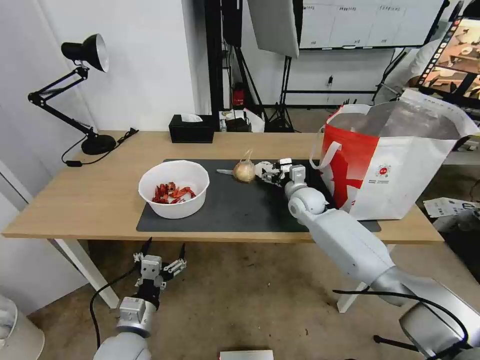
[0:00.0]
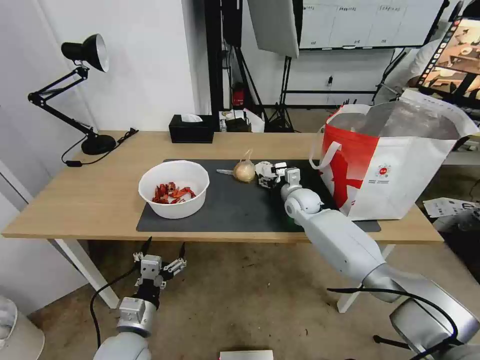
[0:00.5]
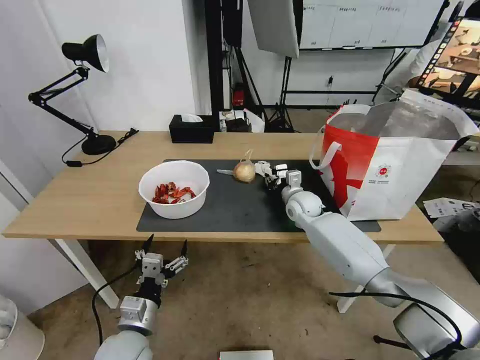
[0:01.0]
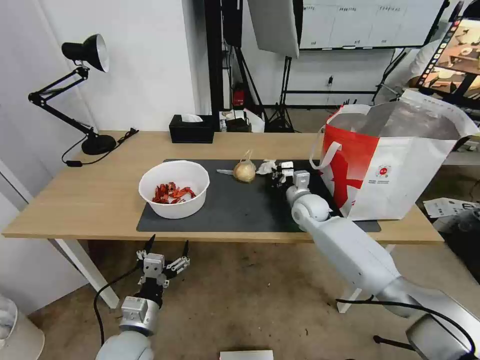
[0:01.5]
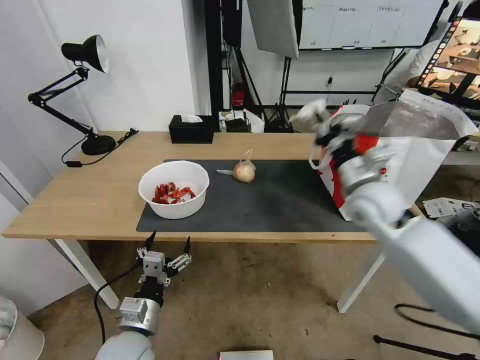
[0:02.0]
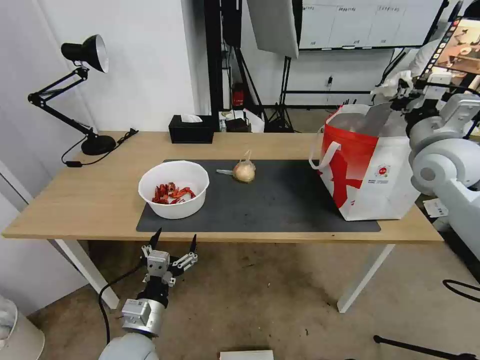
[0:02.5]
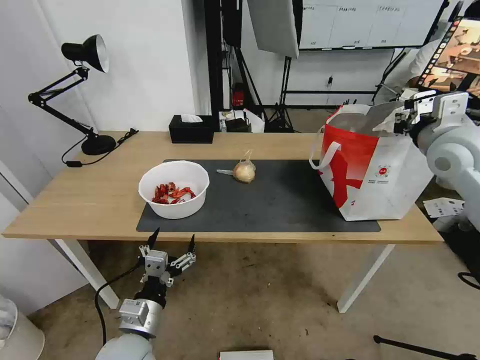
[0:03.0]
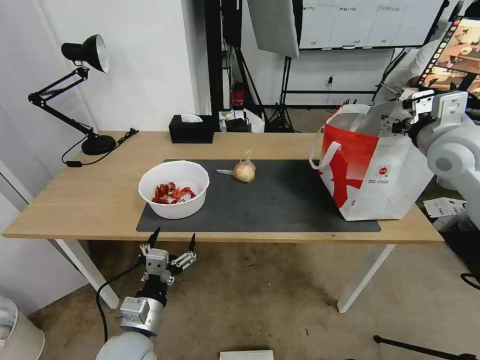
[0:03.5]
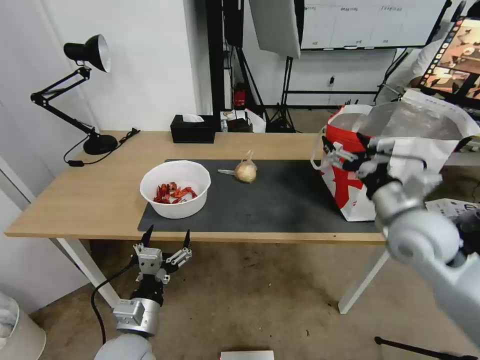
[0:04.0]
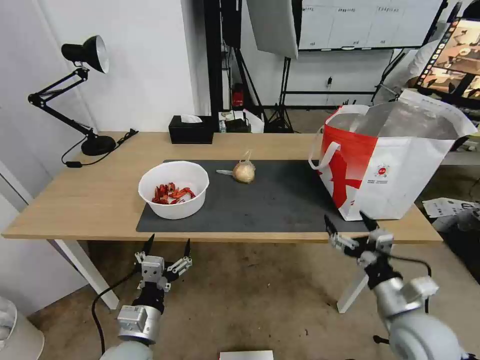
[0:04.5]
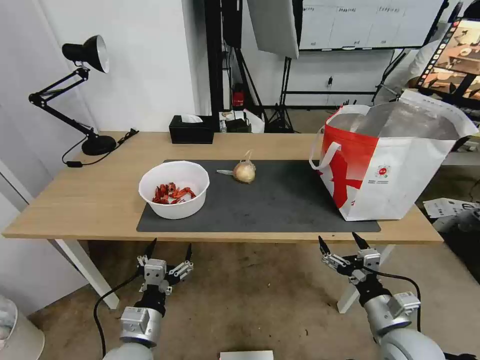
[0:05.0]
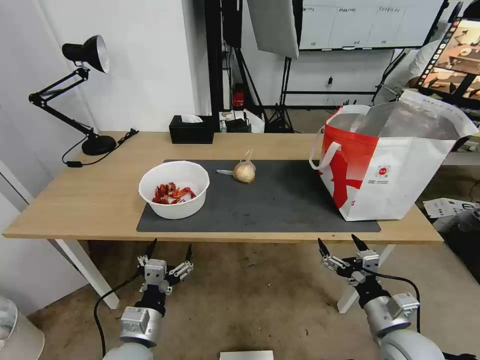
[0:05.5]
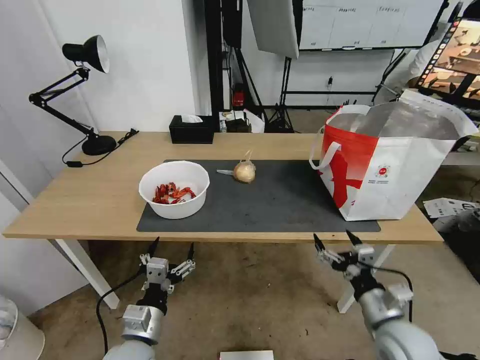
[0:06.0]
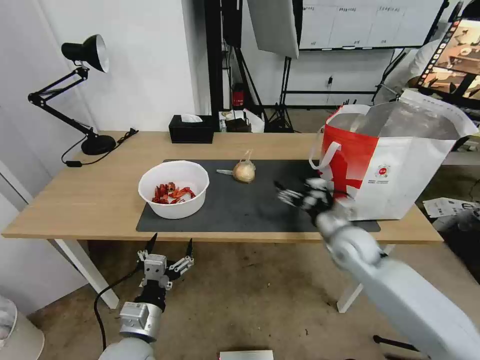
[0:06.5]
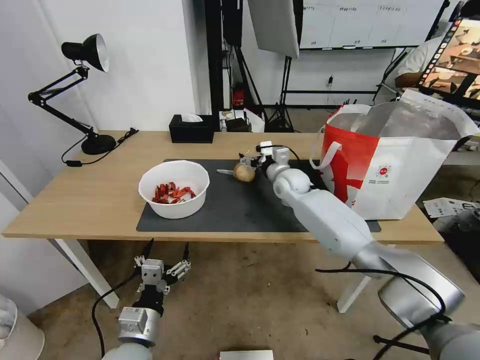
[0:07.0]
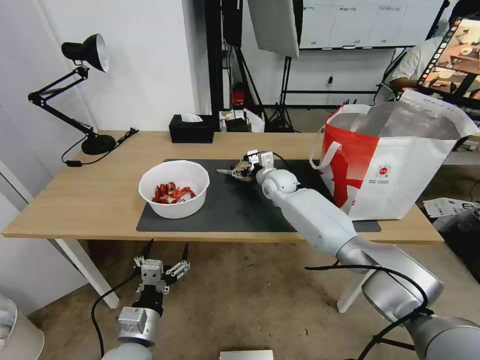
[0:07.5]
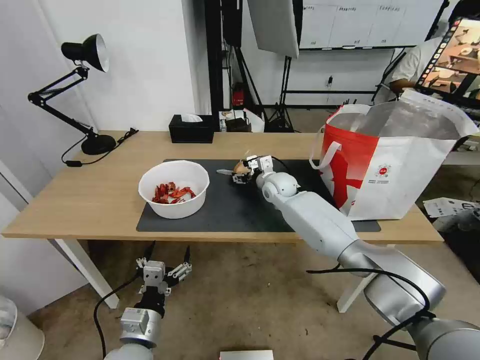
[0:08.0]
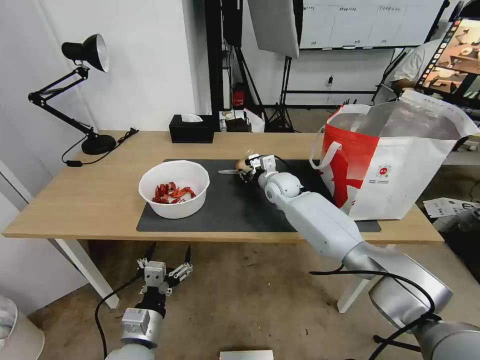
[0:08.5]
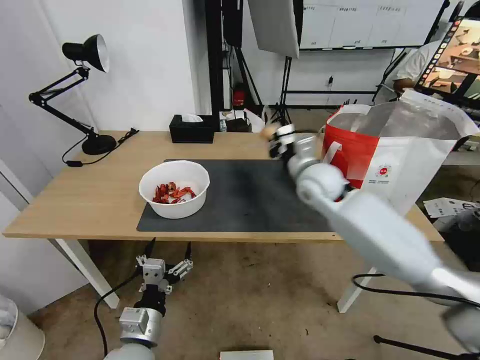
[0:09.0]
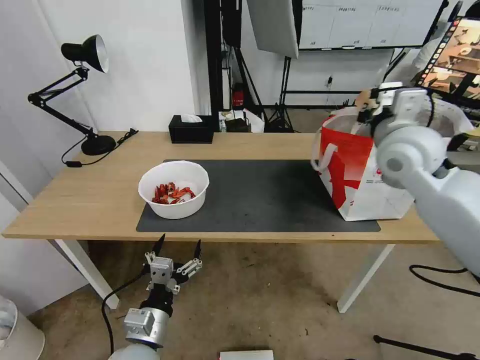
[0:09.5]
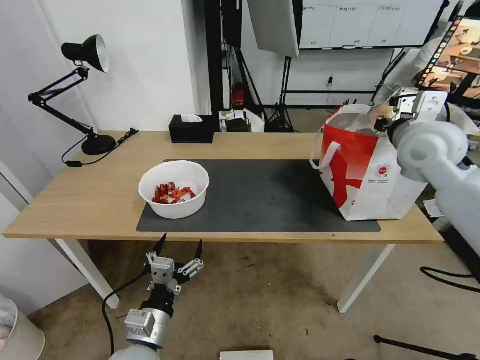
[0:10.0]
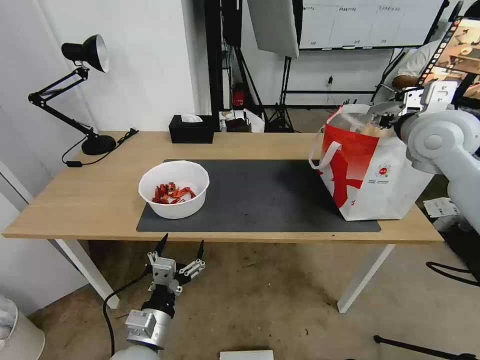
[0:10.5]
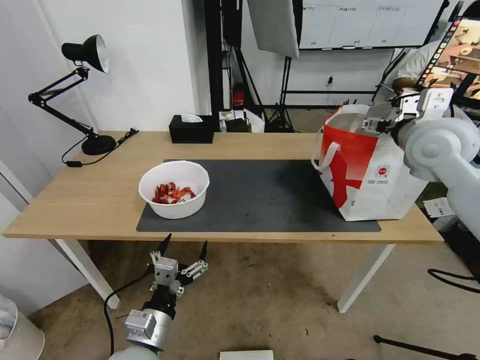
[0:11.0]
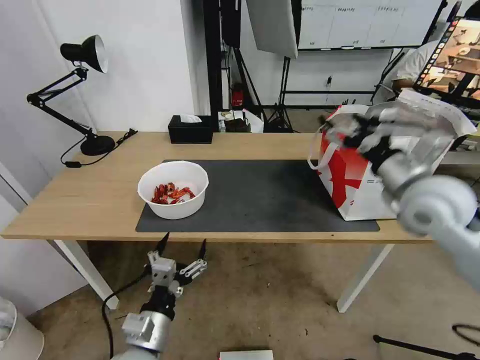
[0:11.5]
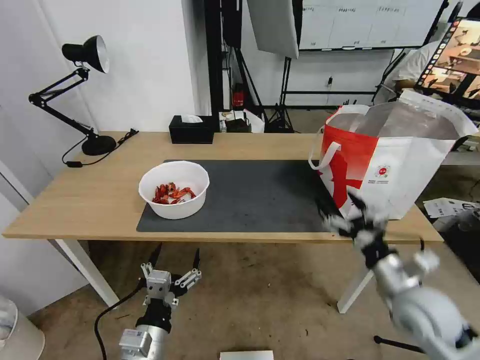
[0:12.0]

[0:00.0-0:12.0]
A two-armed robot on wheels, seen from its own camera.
Task of the whole recording: Pick up the trash from the table and place it into the takeout bag.
0:00.0 to 0:02.0: The right gripper goes roughly 20 cm upward, backward and to the right, and closes up.
0:02.0 to 0:04.0: The right gripper is displaced backward and to the right by some 10 cm, moves some 10 cm upward and comes back, and opens.
0:04.0 to 0:06.0: The right gripper moves downward and backward, some 25 cm.
0:06.0 to 0:08.0: The right gripper travels forward and to the left by some 40 cm.
0:08.0 to 0:10.0: The right gripper moves upward, to the right and backward, approximately 35 cm, and closes its fingers.
0:10.0 to 0:12.0: The right gripper travels downward and backward by approximately 30 cm, and opens.

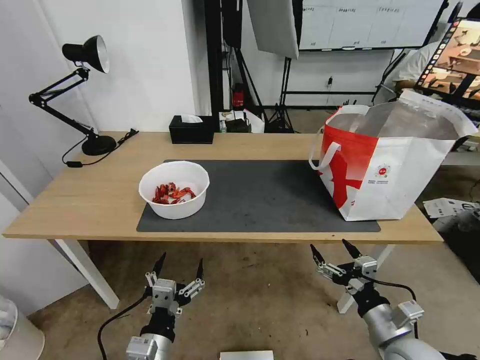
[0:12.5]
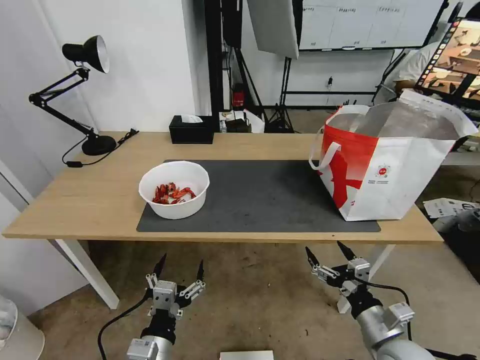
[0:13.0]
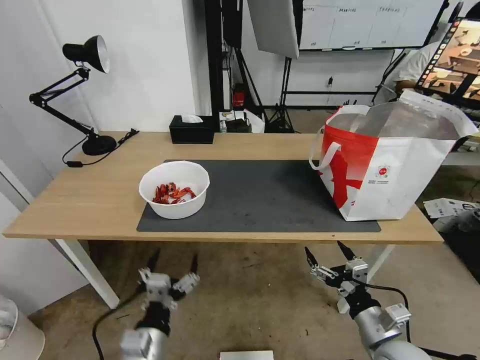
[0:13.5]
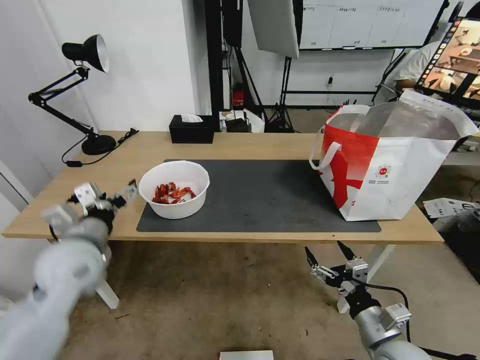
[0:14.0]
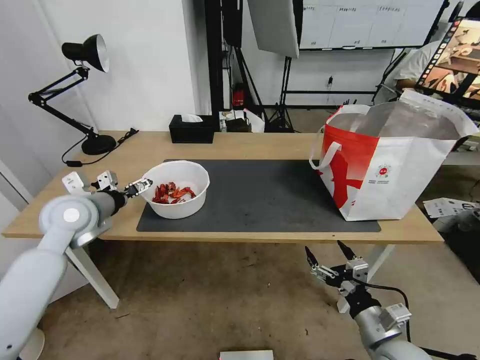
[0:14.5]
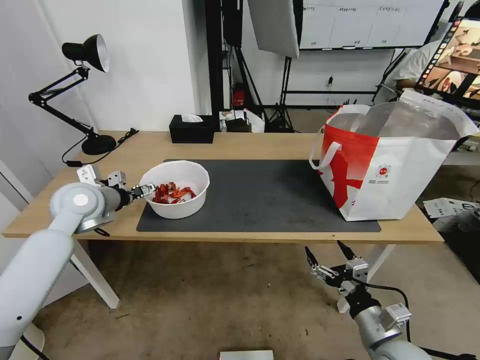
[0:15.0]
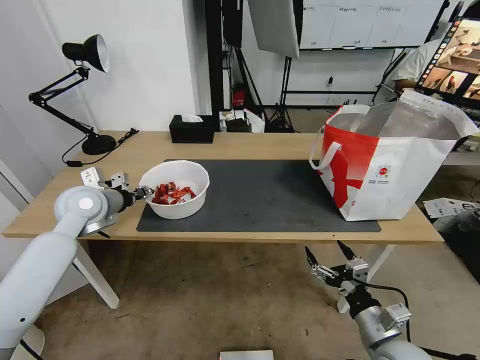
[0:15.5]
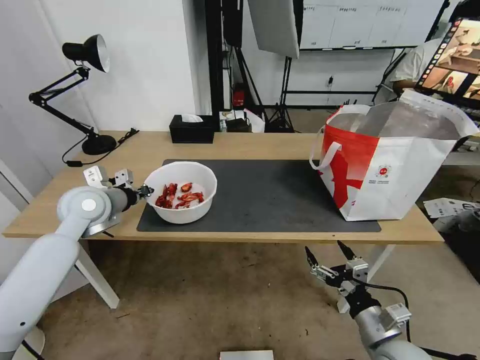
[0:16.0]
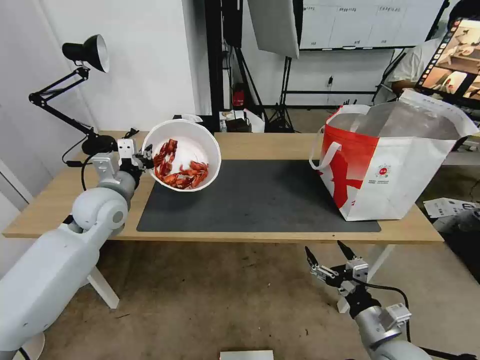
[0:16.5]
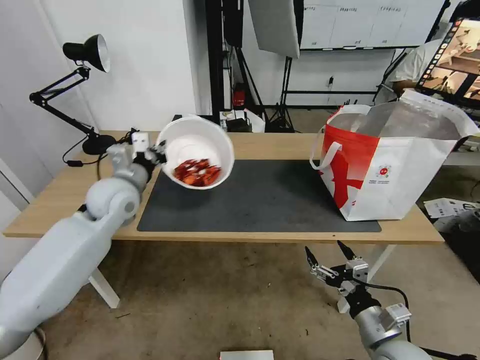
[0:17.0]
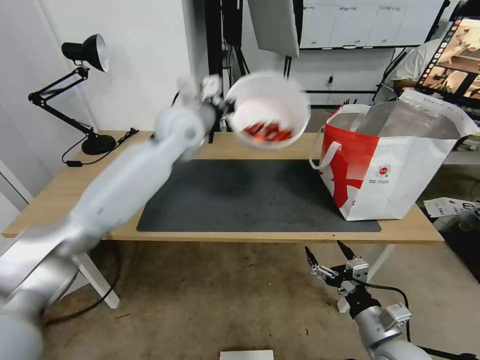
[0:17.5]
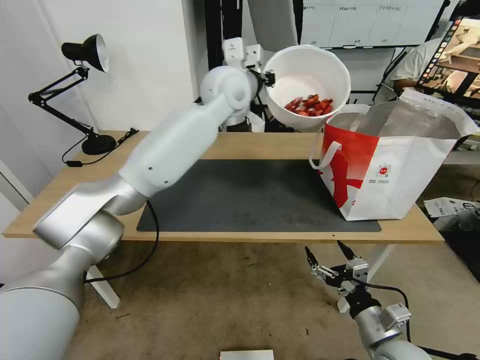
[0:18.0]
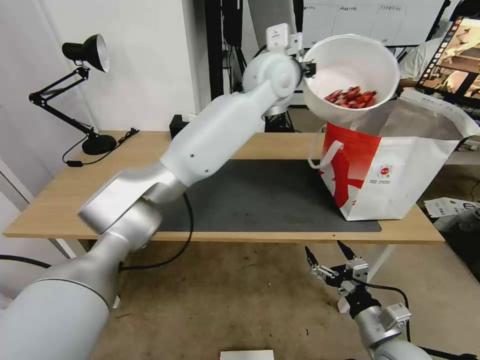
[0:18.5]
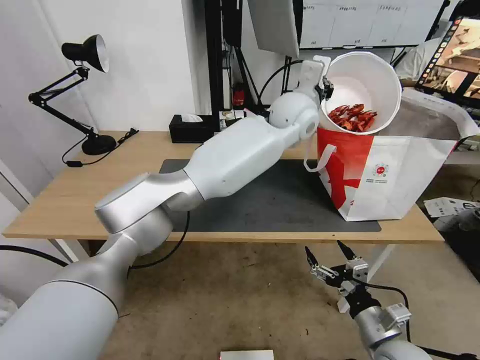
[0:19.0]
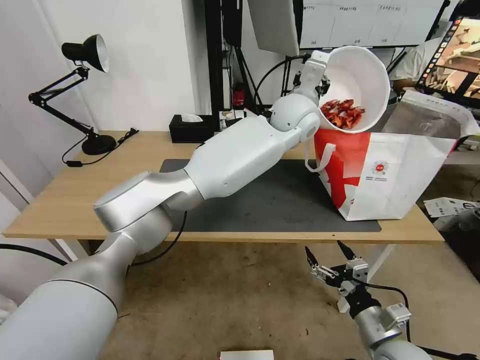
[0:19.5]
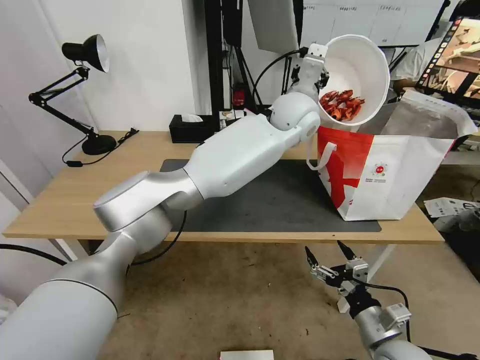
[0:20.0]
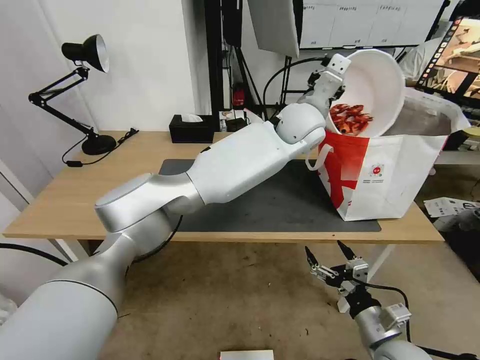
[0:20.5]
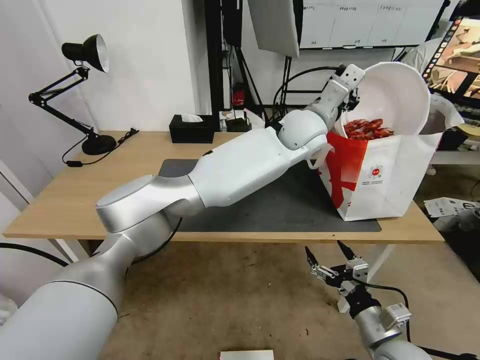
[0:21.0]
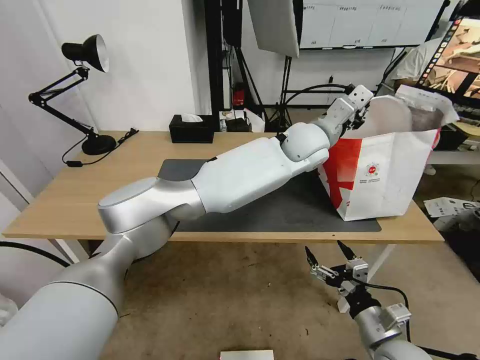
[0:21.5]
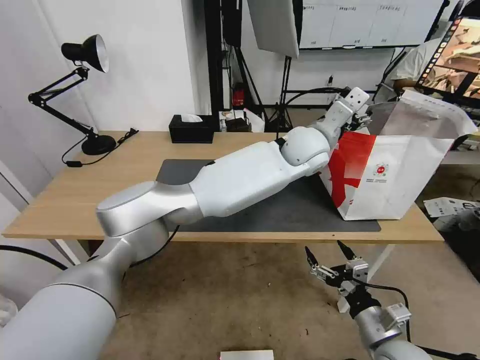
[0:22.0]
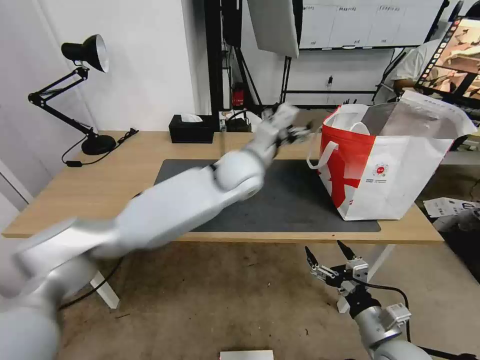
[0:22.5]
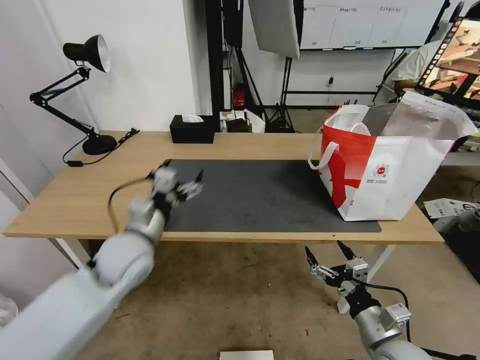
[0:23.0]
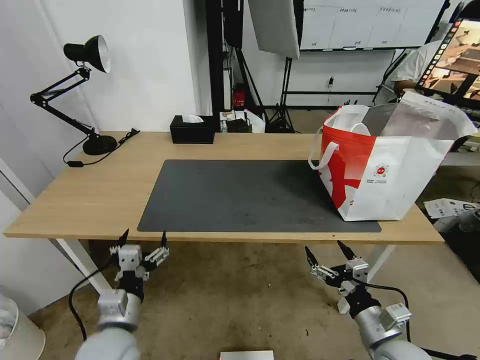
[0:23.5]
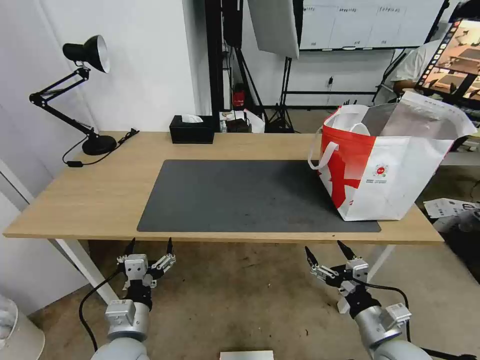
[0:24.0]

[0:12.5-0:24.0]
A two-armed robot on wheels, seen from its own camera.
Task of the whole recording: Pick up the trash from the table and place it into the takeout bag.
0:12.5 to 0:14.5: The left gripper shifts approximately 35 cm forward, upward and to the left.
0:14.5 to 0:16.5: The left gripper moves about 5 cm, and closes.
0:16.5 to 0:18.5: The left gripper shifts roughly 40 cm to the right and upward.
0:18.5 to 0:20.0: The left gripper moves downward and to the right, about 10 cm.
0:20.0 to 0:22.0: The left gripper travels downward by some 5 cm, and opens its fingers.
0:22.0 to 0:24.0: The left gripper heads to the left, backward and downward, covering about 50 cm.
